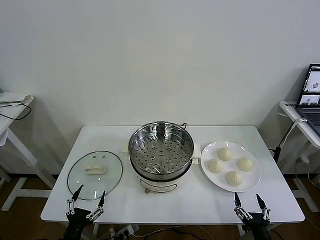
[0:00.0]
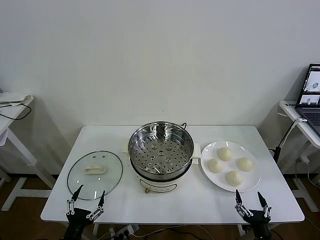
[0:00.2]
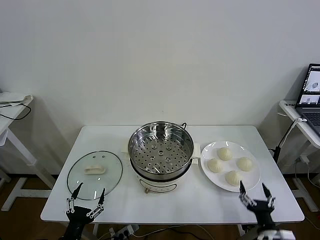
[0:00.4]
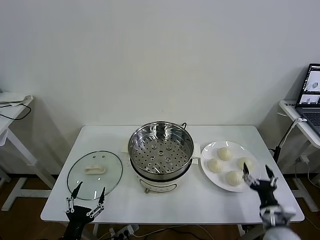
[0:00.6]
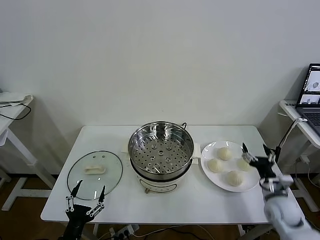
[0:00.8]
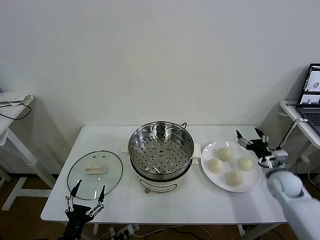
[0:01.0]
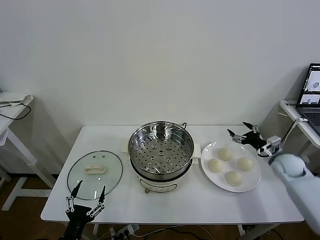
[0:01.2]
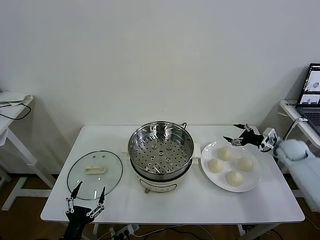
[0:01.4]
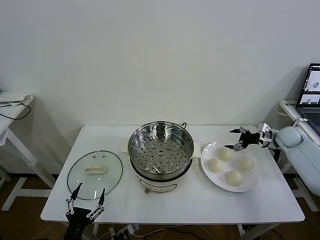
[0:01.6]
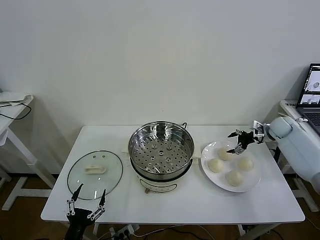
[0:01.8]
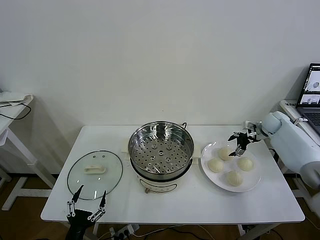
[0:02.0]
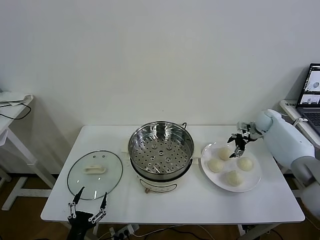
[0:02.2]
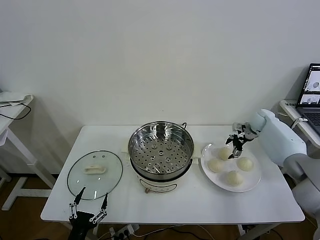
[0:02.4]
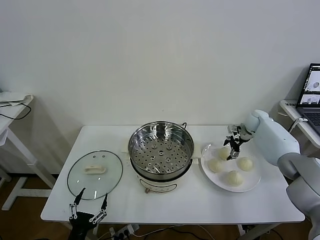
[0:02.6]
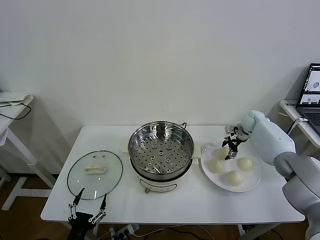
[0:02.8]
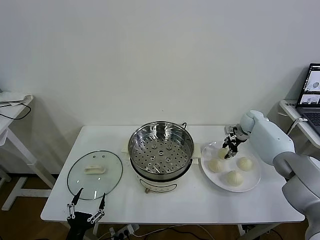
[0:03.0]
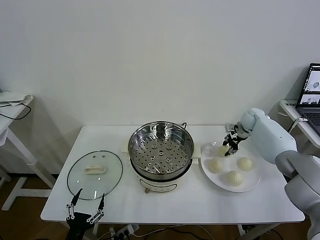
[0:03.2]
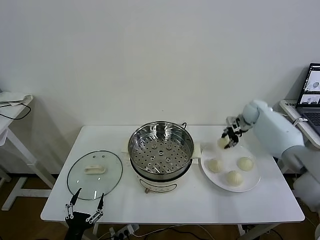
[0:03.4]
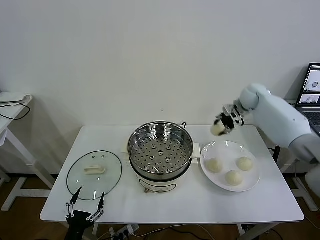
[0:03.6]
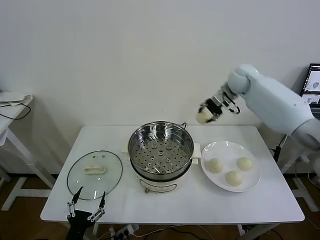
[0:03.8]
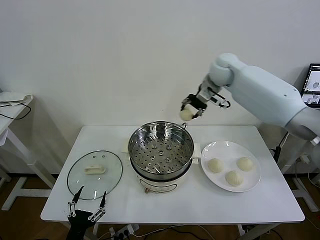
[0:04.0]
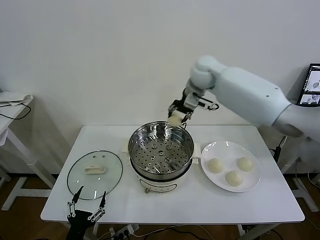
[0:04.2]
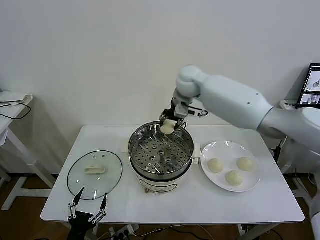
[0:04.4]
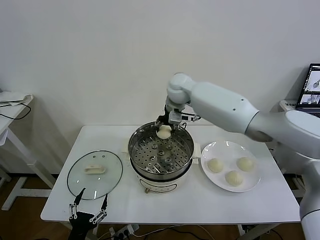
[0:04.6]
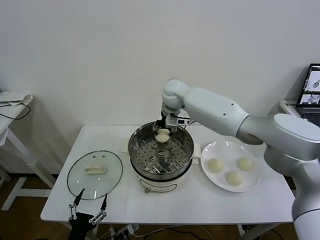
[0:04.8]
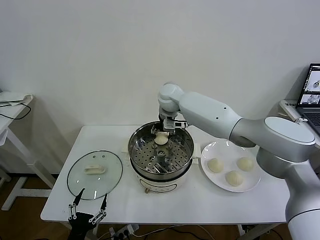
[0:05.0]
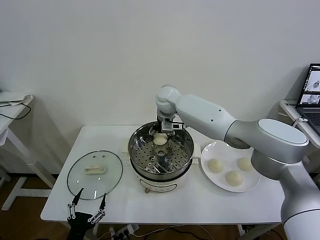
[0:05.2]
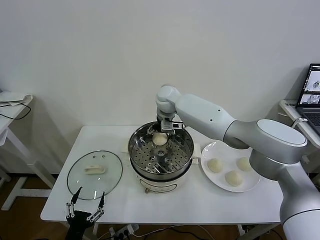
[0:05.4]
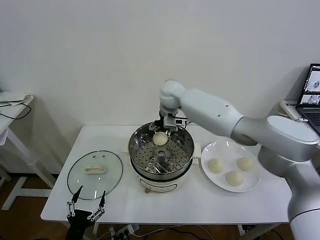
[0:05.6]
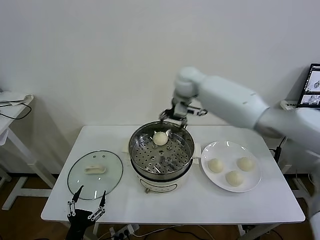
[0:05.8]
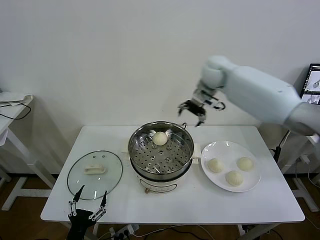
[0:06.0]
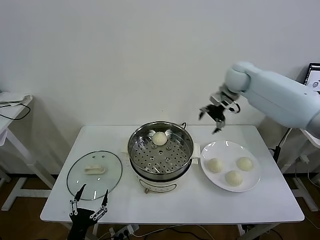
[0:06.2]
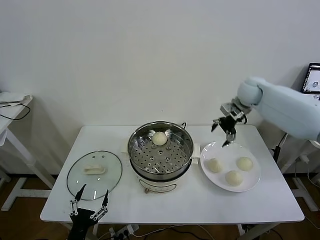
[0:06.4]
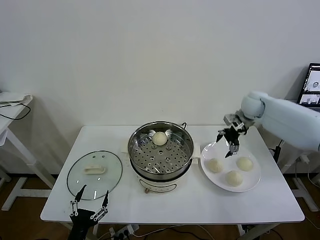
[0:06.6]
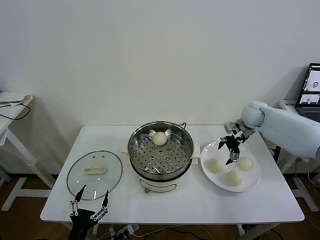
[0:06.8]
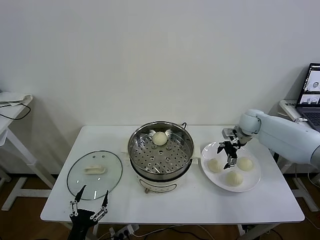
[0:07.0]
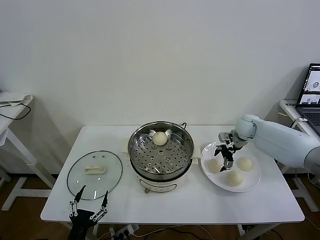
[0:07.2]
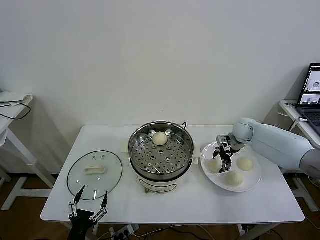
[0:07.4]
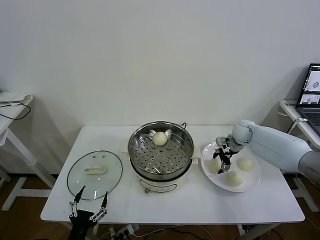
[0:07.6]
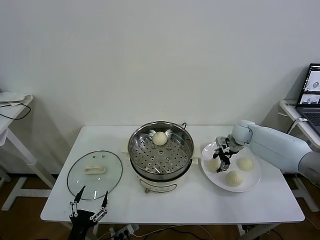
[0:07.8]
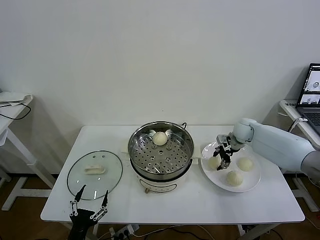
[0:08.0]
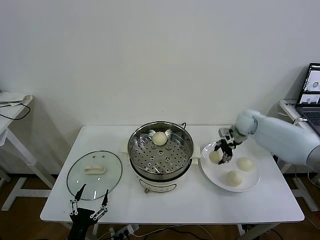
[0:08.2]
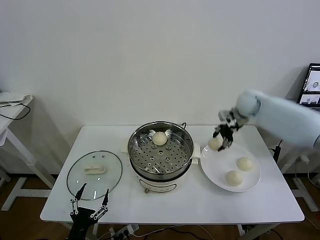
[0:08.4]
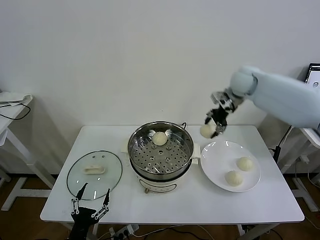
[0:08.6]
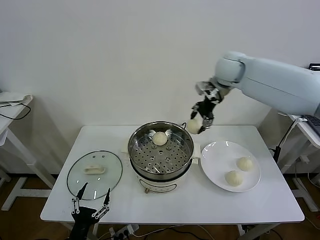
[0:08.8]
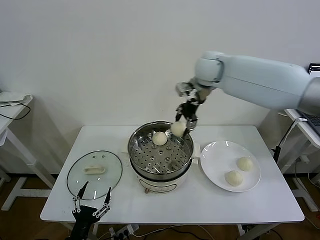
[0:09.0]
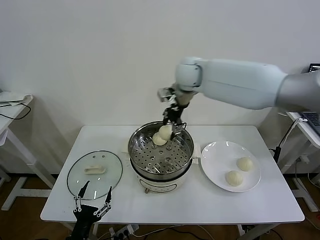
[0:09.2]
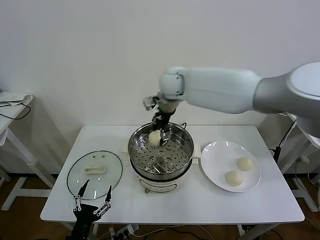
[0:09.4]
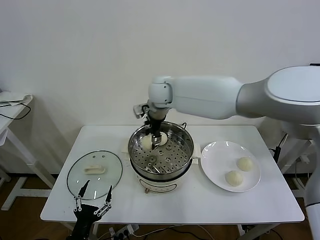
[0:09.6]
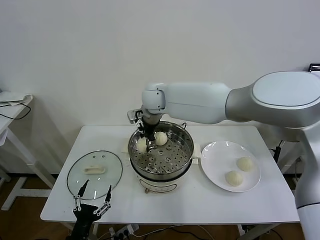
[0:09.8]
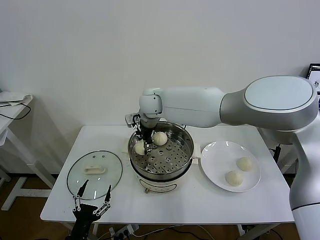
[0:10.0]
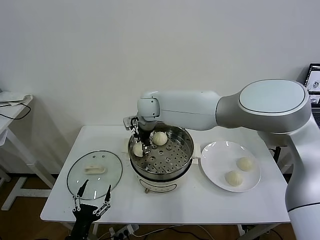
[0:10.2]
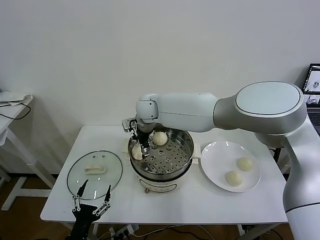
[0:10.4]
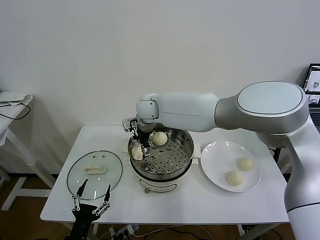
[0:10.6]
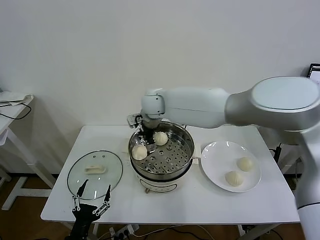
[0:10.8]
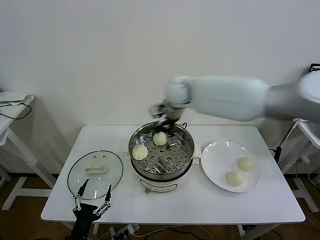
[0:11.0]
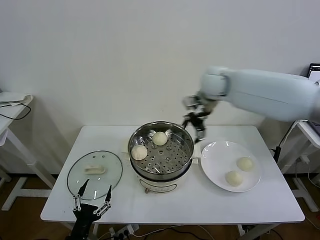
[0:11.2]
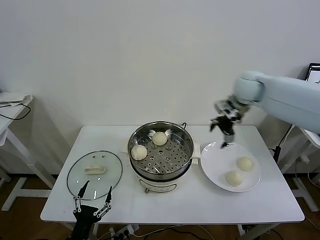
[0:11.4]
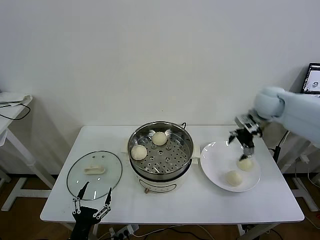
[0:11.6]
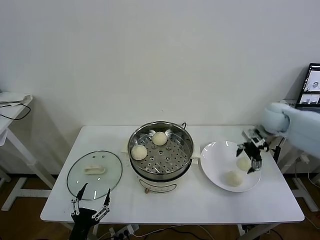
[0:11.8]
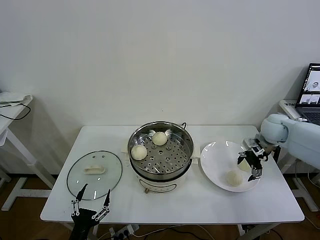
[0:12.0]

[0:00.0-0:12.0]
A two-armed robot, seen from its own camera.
Task of the whole recording: take steamed baozi put them in steamer then cover it.
Step, 0:00.0 to 0:03.0: Grasp the baozi in the plate with right gripper.
Step, 0:03.4 to 0:05.4: Place the baozi on the steamer with right gripper.
Step, 0:05.6 to 0:07.8: Grasp the baozi in the plate with right gripper.
Step, 0:08.2 to 0:10.6: Place the baozi on the steamer with right gripper.
0:01.6 to 0:03.0: The right gripper shifts some 15 cm to the left and forward, and closes its fingers.
0:03.0 to 0:04.4: The right gripper moves to the left and upward, about 35 cm.
0:04.4 to 0:06.0: The right gripper shifts approximately 15 cm to the right, and opens its fingers.
0:06.0 to 0:07.6: The right gripper heads downward and to the right, covering roughly 25 cm.
0:07.6 to 0:09.0: The right gripper heads upward and to the left, covering approximately 35 cm.
0:09.0 to 0:10.4: The right gripper travels to the left and downward by some 20 cm, and opens its fingers.
0:10.4 to 0:12.0: The right gripper heads to the right, covering about 40 cm.

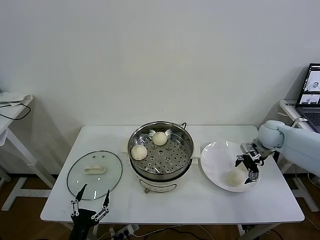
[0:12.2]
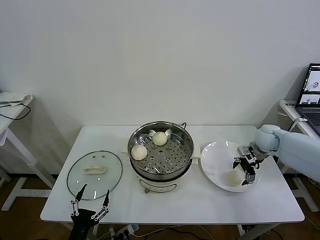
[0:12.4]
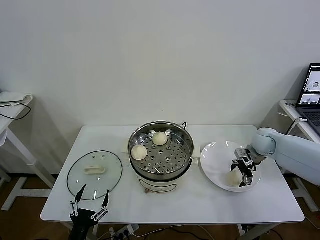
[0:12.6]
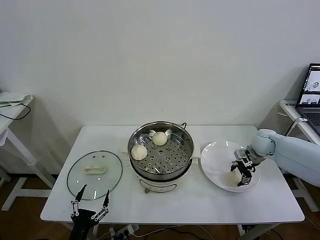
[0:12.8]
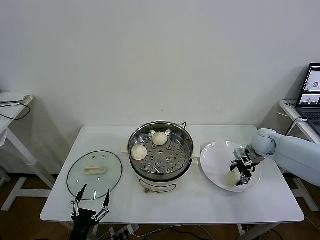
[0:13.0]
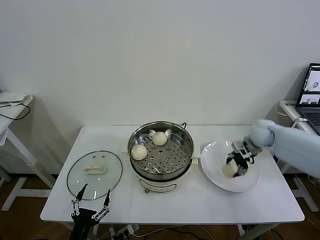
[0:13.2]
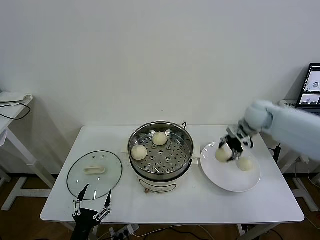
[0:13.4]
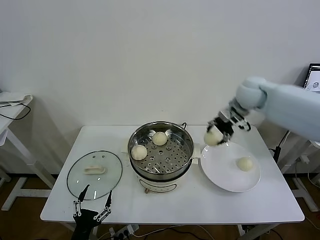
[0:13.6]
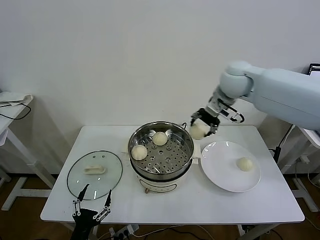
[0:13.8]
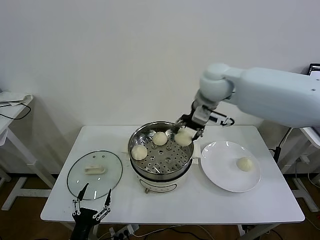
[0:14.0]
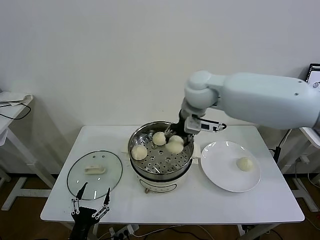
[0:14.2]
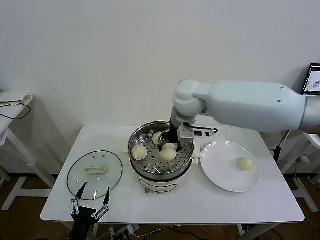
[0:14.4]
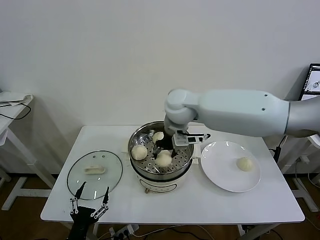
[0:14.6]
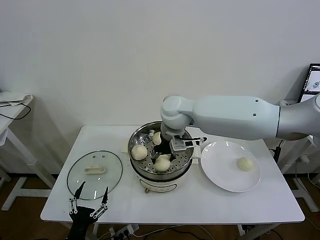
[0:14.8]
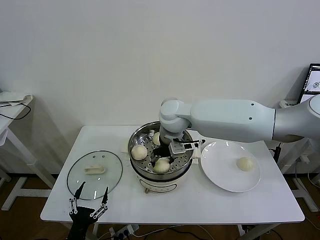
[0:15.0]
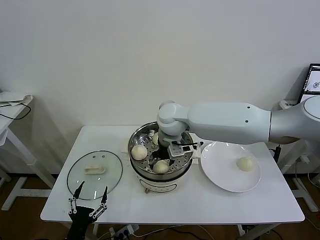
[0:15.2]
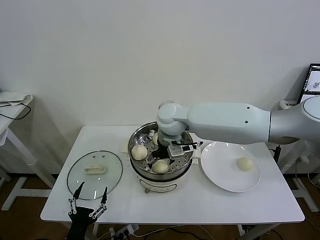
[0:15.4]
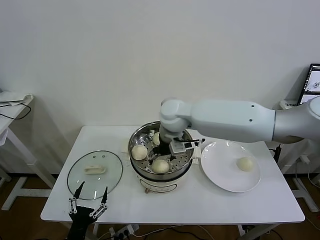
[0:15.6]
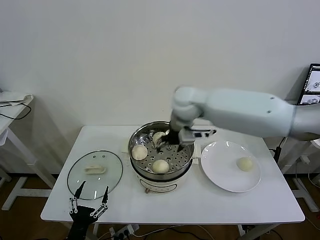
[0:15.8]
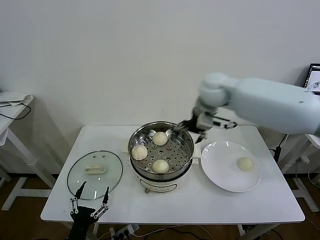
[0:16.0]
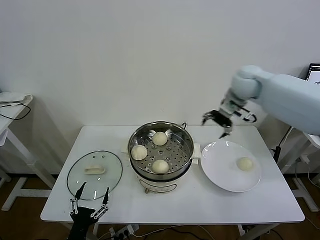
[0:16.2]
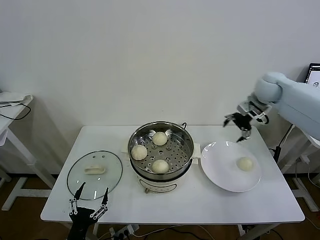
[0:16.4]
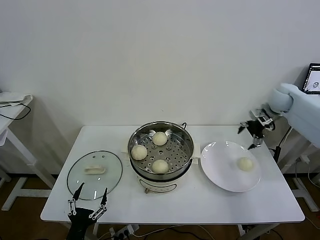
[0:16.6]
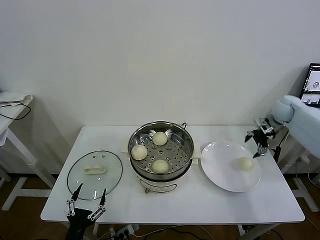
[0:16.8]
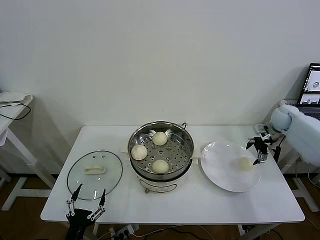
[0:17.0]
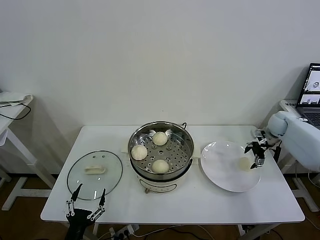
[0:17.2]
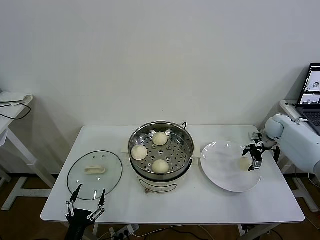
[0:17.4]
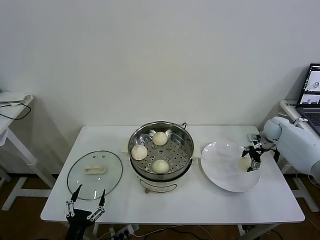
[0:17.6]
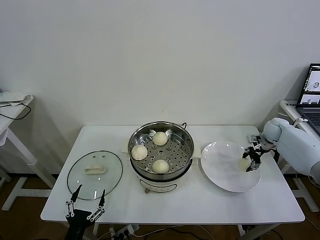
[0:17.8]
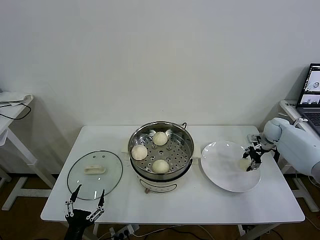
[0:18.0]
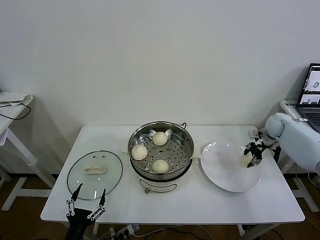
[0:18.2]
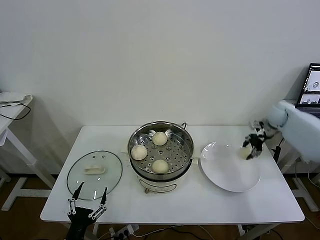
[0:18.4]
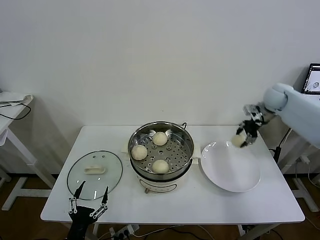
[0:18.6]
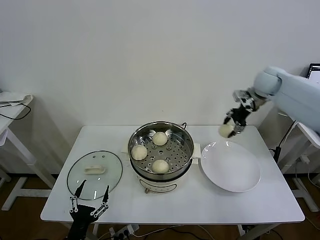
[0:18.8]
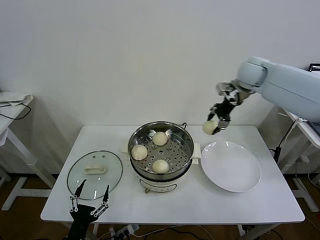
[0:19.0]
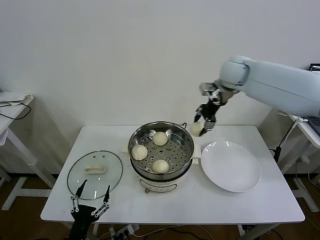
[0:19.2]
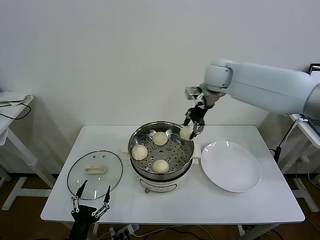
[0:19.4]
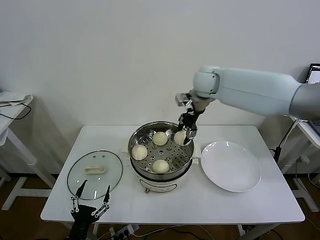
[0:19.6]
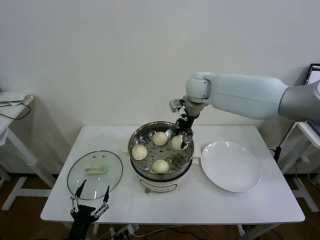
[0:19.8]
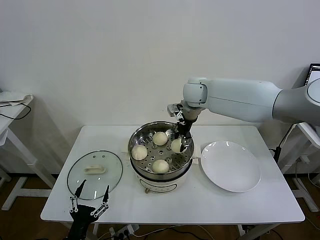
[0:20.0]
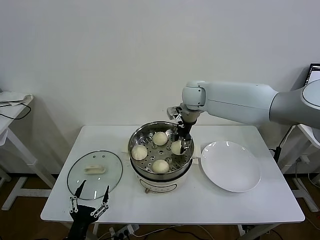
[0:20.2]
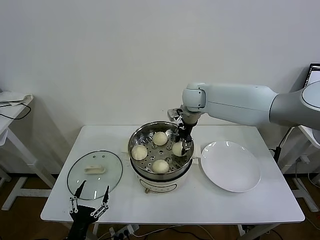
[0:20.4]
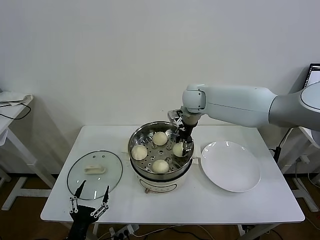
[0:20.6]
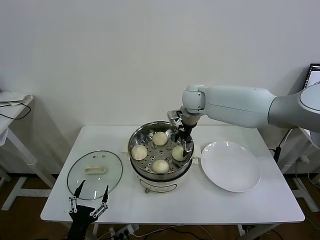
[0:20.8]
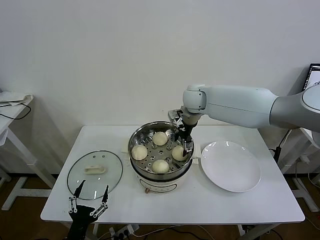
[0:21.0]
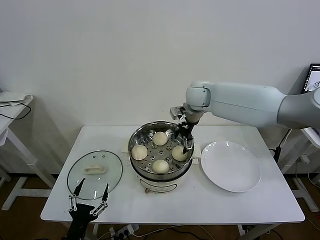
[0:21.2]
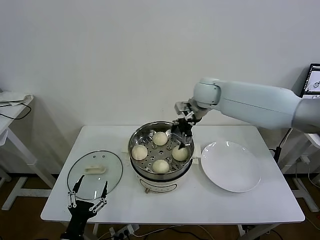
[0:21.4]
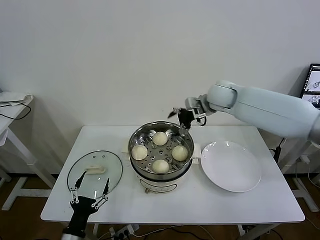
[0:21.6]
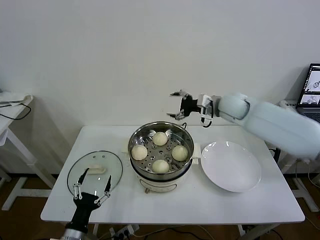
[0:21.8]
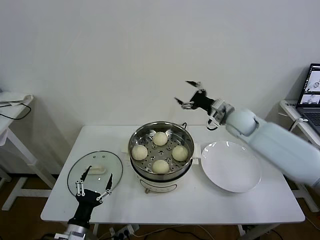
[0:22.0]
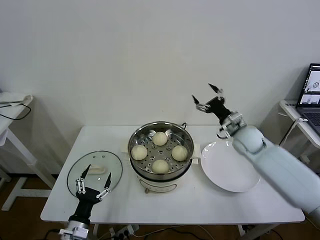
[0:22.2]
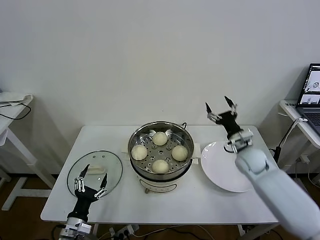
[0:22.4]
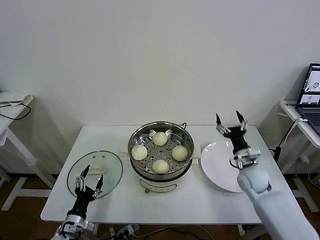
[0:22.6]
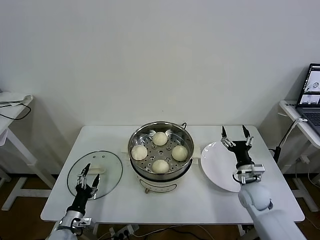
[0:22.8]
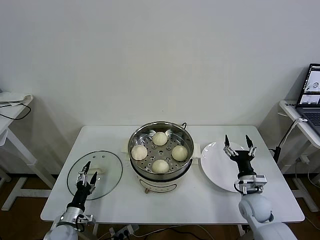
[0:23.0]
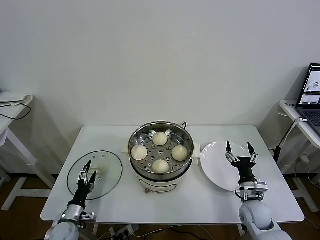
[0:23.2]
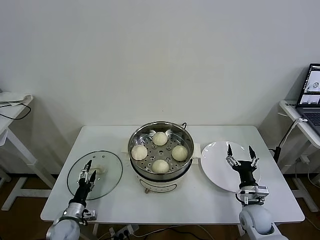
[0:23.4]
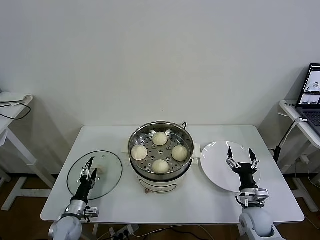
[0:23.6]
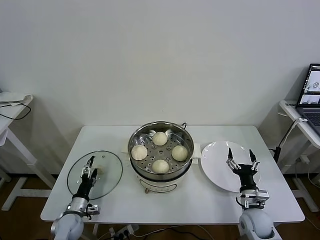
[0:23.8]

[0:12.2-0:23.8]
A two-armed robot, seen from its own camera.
Task of the whole recording: take steamed baozi put them in steamer then cover it.
Step, 0:13.2 to 0:15.4: Place the baozi on the steamer with right gripper.
Step, 0:15.6 to 0:18.0: Grasp the baozi in the plate with right gripper.
Step, 0:18.2 to 0:21.0: Place the baozi on the steamer with right gripper.
0:12.2 to 0:13.6: The right gripper heads upward and to the left, covering roughly 20 cm, and closes up.
0:13.6 to 0:15.0: The right gripper travels to the left by some 25 cm.
0:15.0 to 0:16.6: The right gripper moves to the right, roughly 40 cm, and opens its fingers.
0:16.6 to 0:18.0: The right gripper heads downward, covering roughly 15 cm, and closes.
0:18.0 to 0:19.4: The right gripper shifts approximately 35 cm to the left and upward.
0:19.4 to 0:21.0: The right gripper moves downward and to the left, roughly 10 cm, and opens up.
0:21.0 to 0:22.4: The right gripper heads to the right, downward and backward, covering roughly 30 cm. Meanwhile the left gripper goes roughly 10 cm forward.
0:22.4 to 0:23.8: The right gripper moves backward and downward, some 20 cm, while the left gripper goes roughly 10 cm forward and downward.
